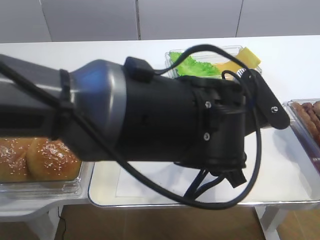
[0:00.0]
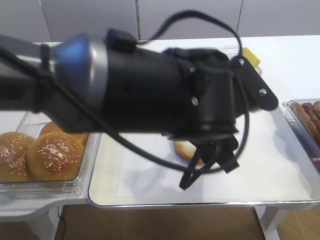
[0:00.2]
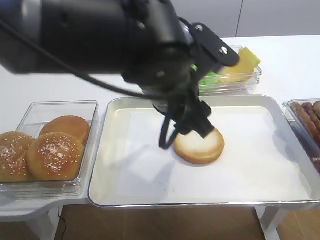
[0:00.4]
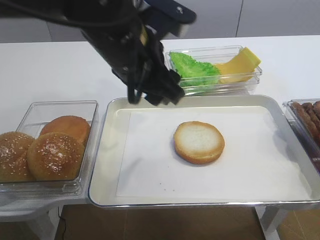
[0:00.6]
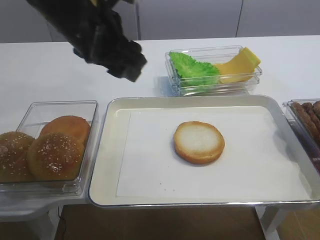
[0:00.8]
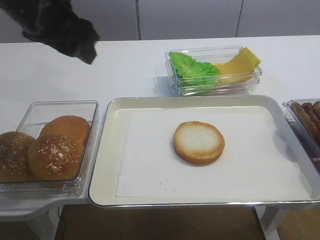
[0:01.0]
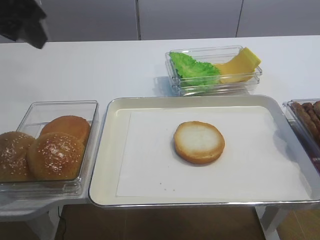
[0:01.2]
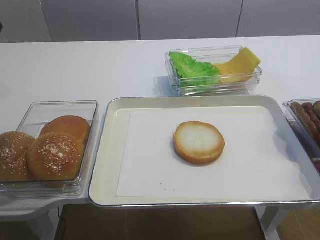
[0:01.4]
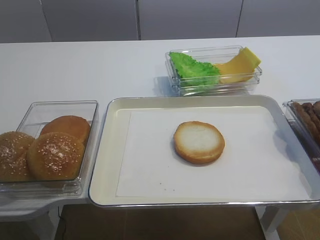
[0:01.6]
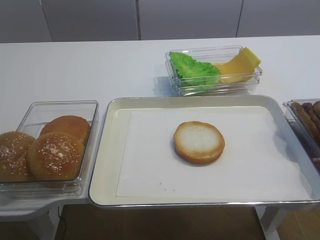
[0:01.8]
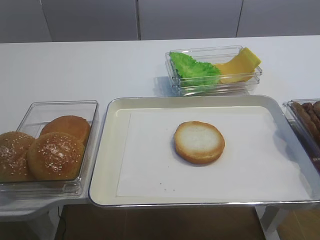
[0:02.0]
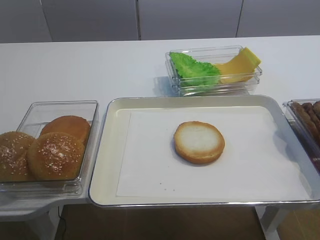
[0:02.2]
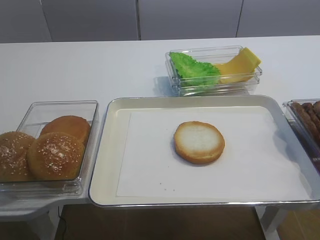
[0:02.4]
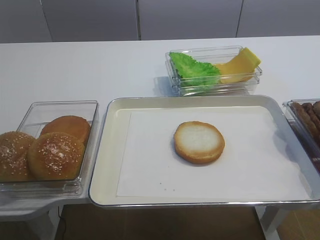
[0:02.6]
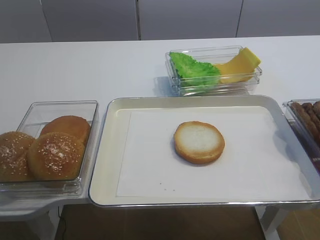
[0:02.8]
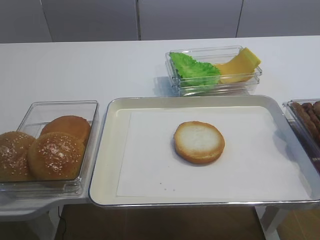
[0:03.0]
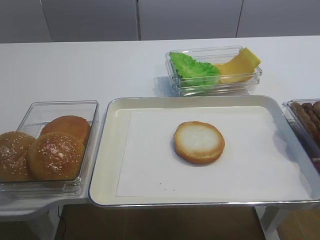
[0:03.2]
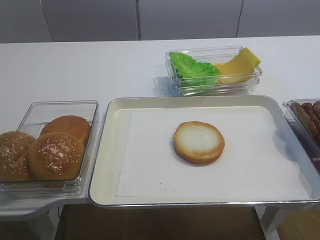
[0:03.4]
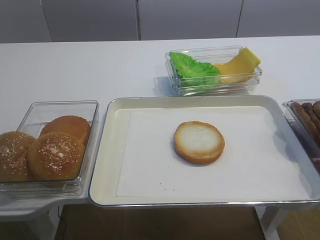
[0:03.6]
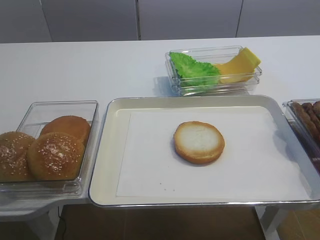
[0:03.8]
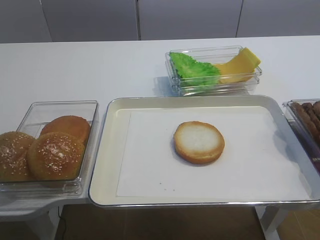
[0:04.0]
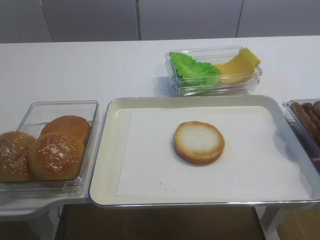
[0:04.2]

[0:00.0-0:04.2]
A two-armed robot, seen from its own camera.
0:00.0 to 0:01.4: The left gripper goes approximately 35 cm to the left and upward.
